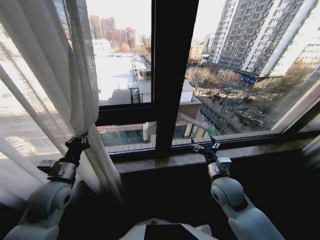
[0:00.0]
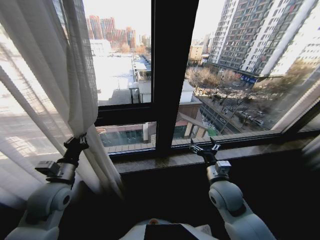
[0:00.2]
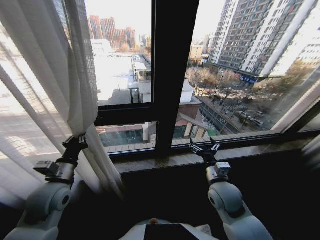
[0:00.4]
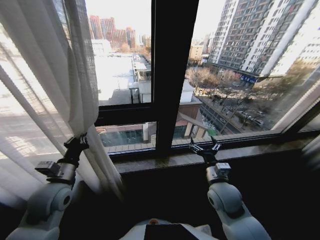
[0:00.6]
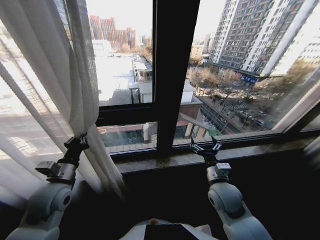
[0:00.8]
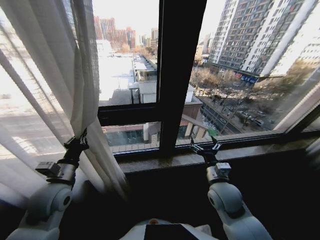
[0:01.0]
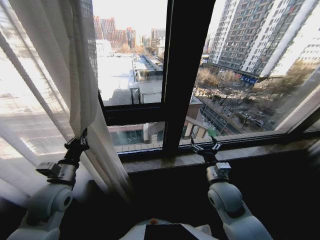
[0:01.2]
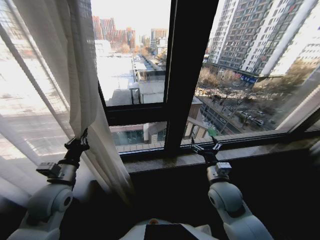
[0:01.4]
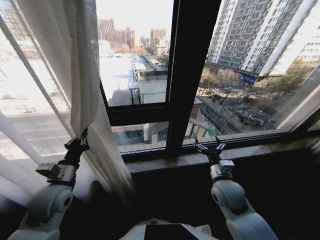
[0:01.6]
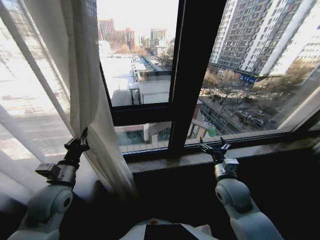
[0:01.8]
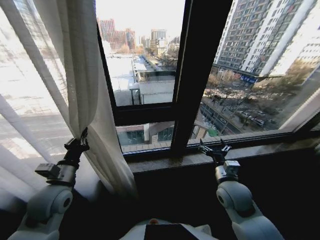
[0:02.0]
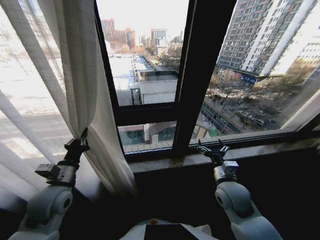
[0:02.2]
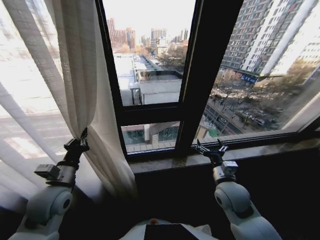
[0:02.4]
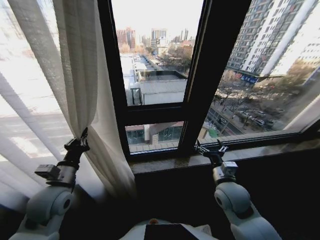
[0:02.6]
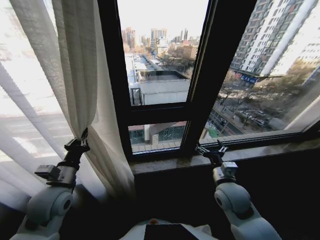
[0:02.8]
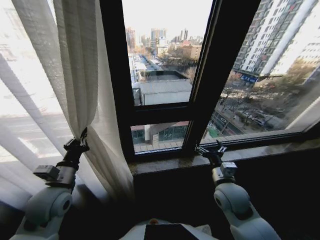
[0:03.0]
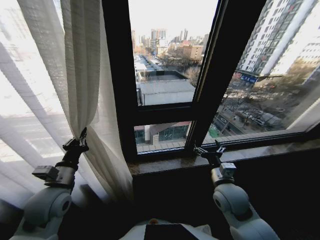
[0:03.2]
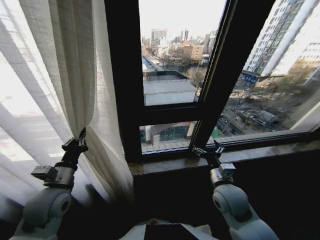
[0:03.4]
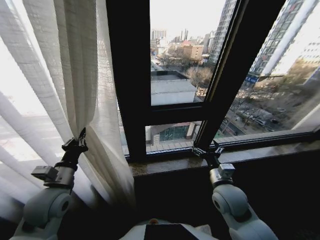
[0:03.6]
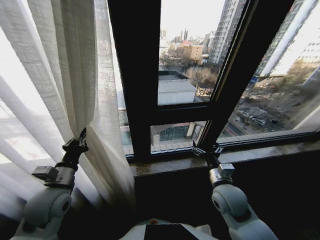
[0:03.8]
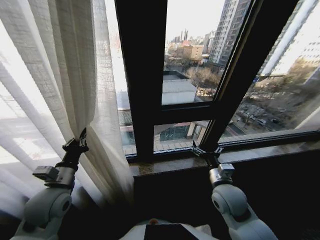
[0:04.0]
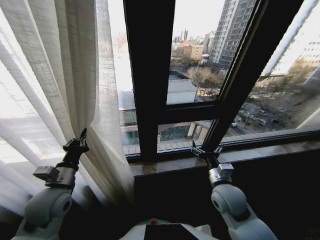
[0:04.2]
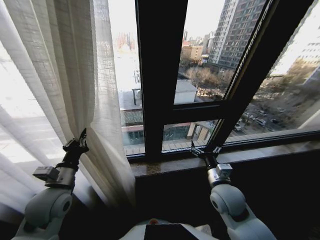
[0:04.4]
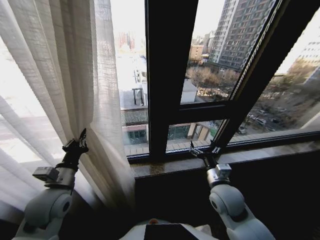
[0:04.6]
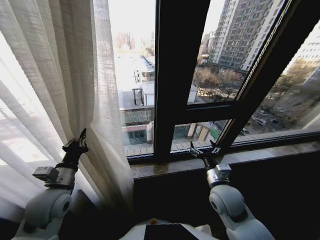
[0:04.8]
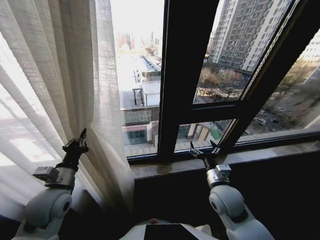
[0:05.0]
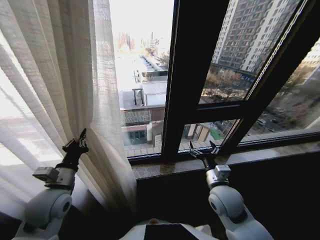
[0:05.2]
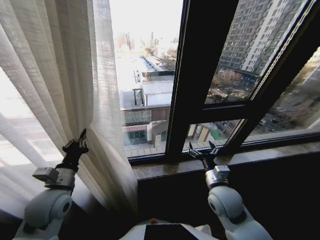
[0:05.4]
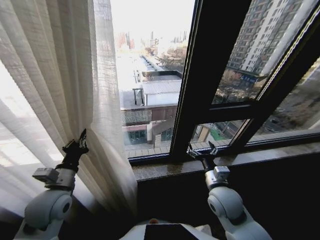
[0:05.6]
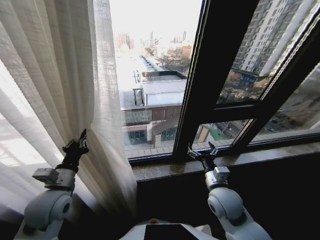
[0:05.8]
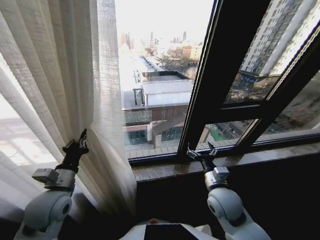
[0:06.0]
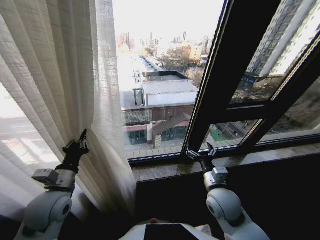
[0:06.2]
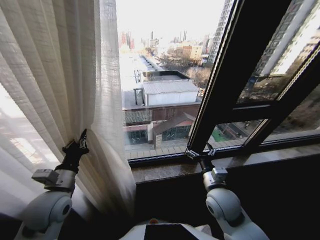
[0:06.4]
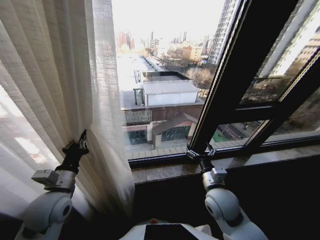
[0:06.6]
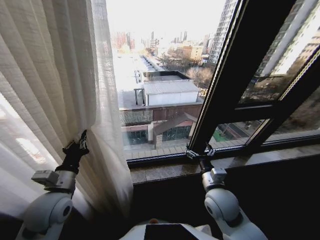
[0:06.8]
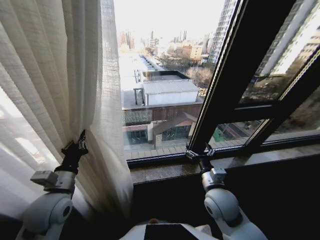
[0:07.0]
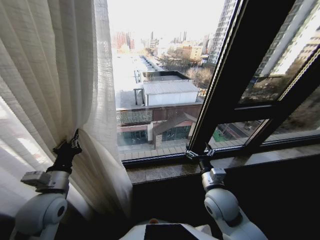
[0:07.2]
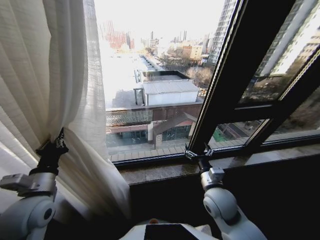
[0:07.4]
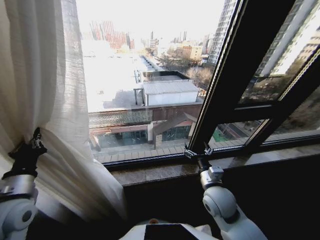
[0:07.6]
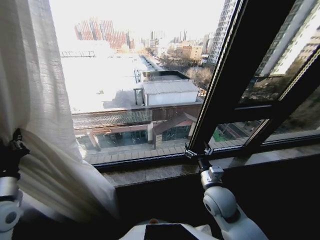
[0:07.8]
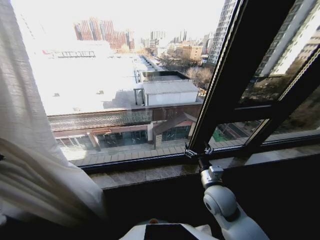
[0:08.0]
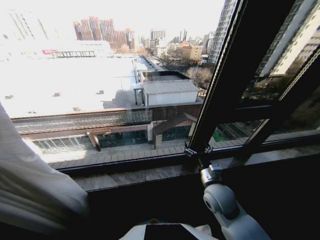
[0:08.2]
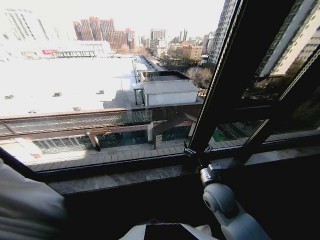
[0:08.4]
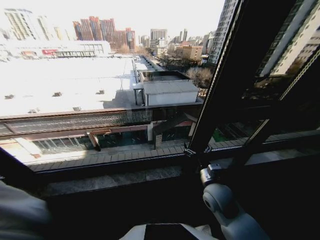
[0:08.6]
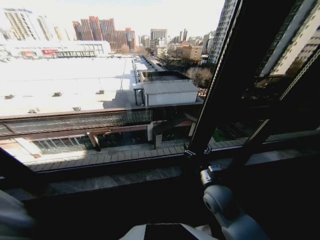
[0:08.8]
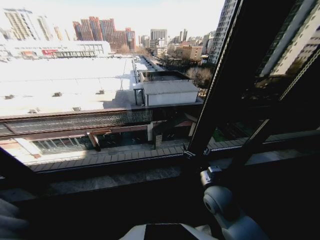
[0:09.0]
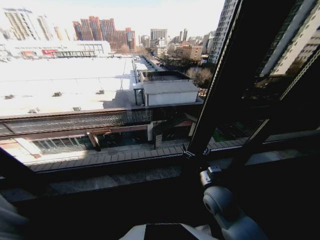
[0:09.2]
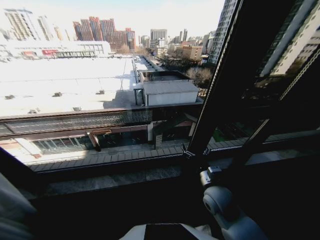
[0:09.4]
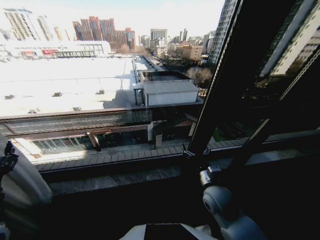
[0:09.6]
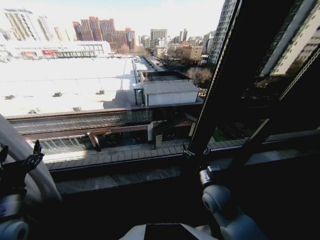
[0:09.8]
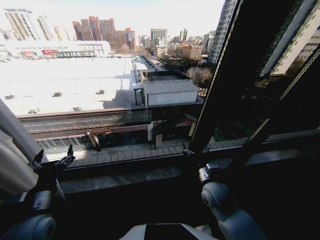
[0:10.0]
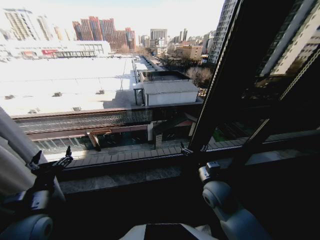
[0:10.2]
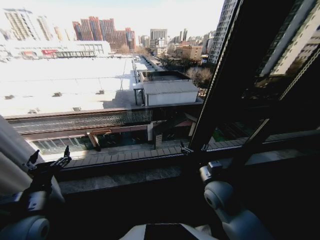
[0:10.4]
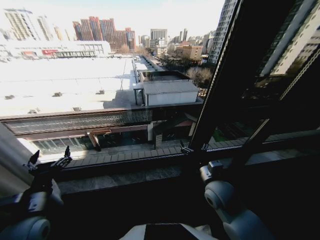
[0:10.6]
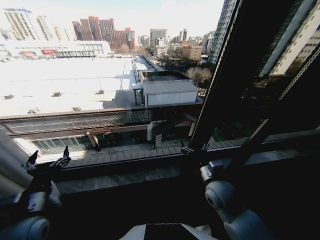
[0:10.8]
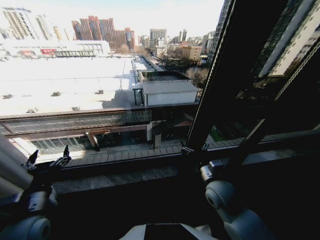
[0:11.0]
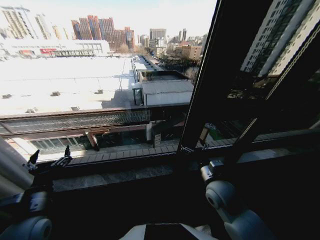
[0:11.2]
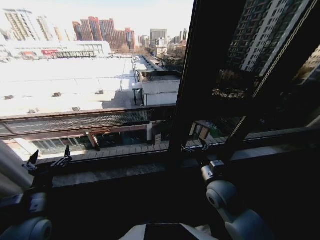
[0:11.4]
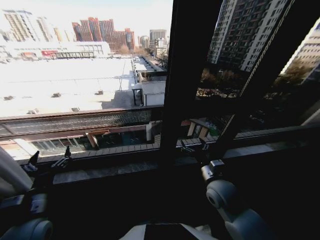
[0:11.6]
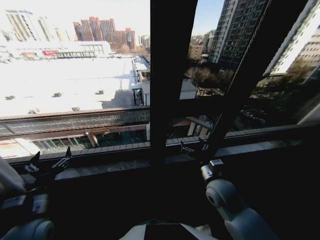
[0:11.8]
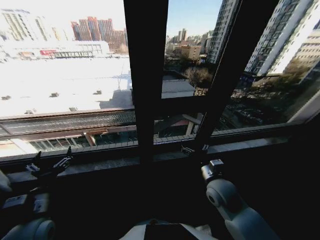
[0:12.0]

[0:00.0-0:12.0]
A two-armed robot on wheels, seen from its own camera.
Task of the whole recording: Open the curtains by pulling them apart, changing their state from closed to fully open.
0:06.0 to 0:07.6: The left gripper travels to the left by some 5 cm.
0:07.6 to 0:09.0: The left gripper shifts about 20 cm to the left and backward.
0:09.0 to 0:10.4: The left gripper goes some 20 cm to the right, and opens up.
